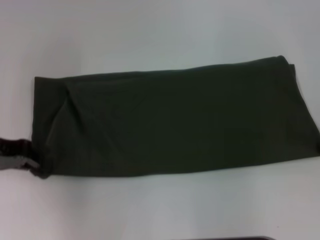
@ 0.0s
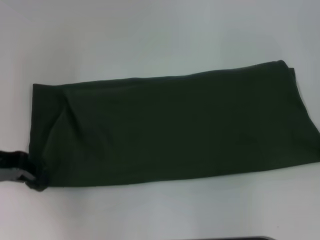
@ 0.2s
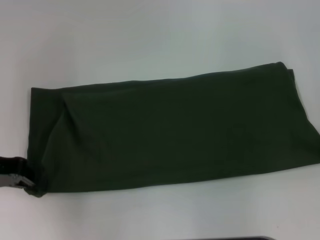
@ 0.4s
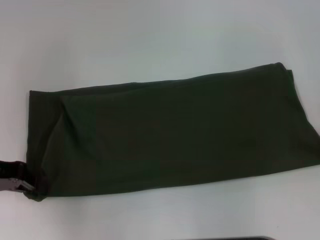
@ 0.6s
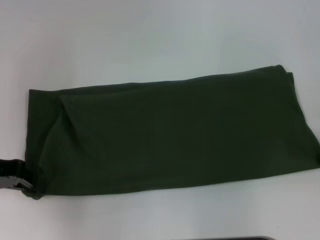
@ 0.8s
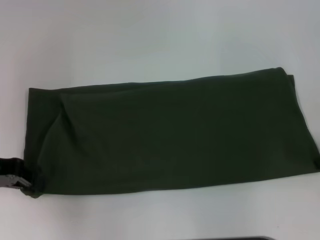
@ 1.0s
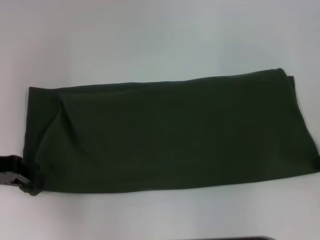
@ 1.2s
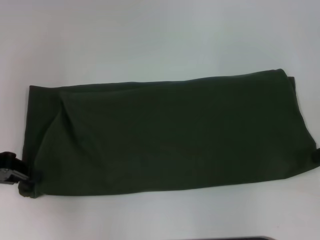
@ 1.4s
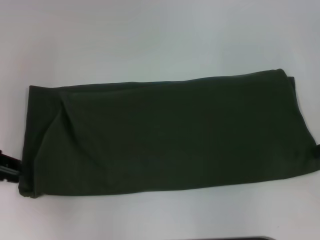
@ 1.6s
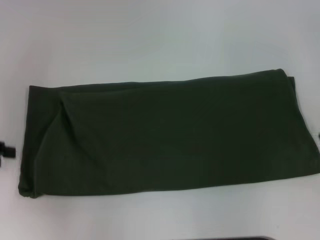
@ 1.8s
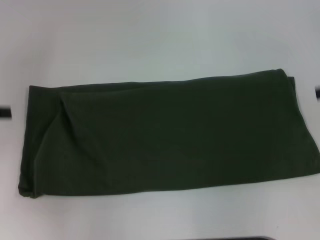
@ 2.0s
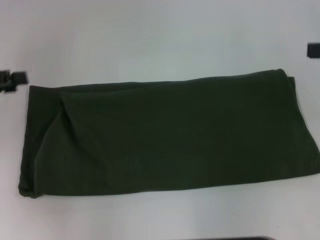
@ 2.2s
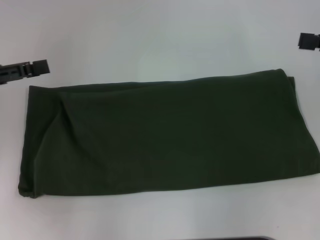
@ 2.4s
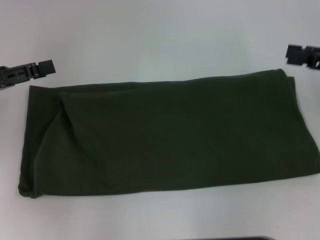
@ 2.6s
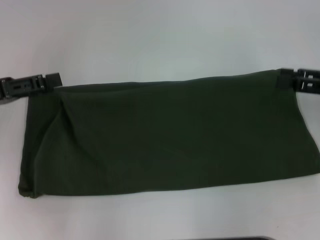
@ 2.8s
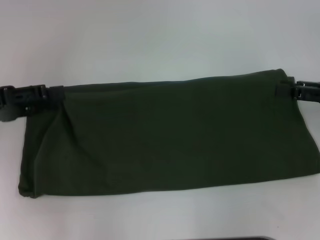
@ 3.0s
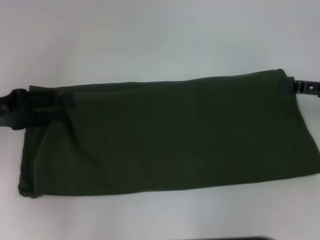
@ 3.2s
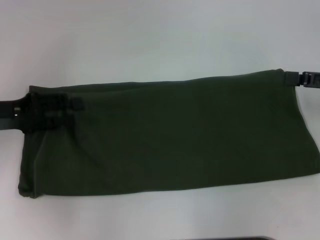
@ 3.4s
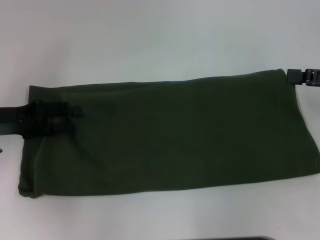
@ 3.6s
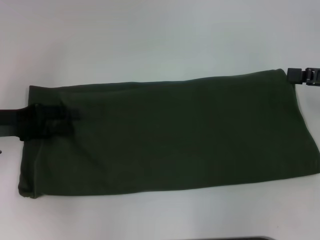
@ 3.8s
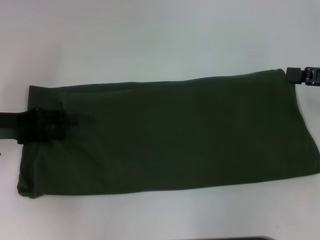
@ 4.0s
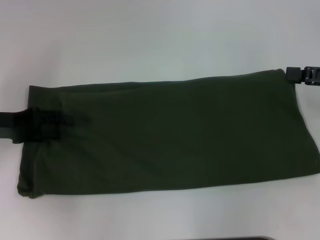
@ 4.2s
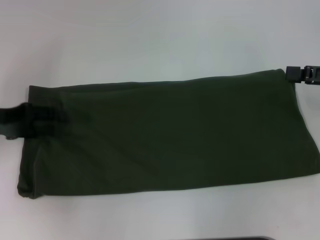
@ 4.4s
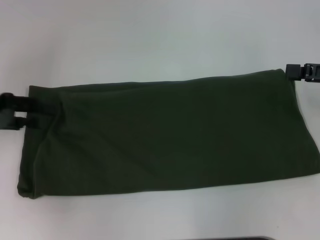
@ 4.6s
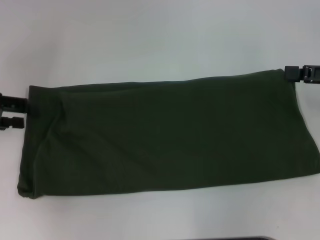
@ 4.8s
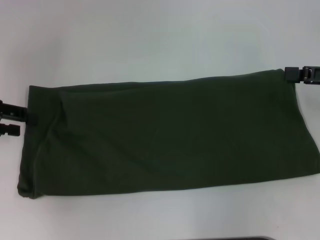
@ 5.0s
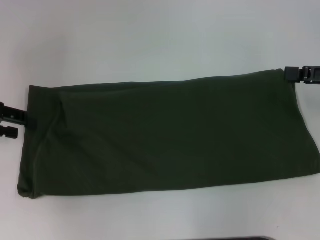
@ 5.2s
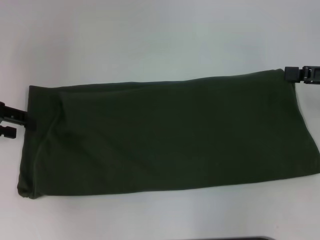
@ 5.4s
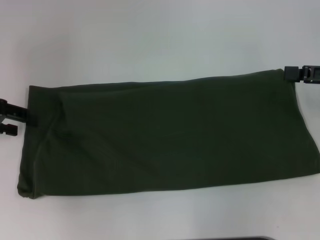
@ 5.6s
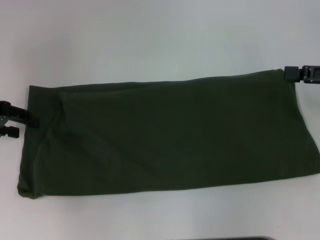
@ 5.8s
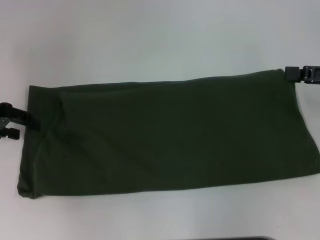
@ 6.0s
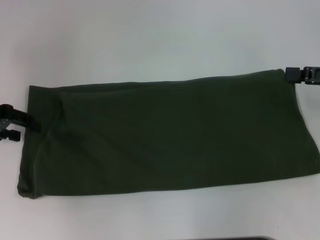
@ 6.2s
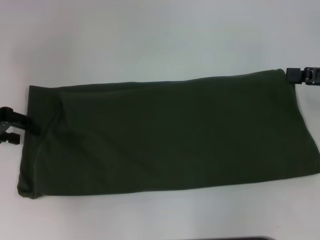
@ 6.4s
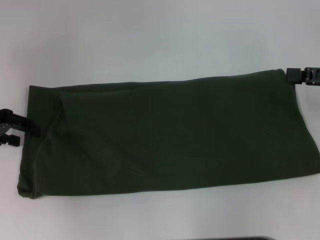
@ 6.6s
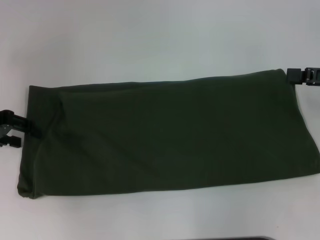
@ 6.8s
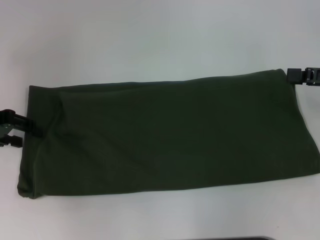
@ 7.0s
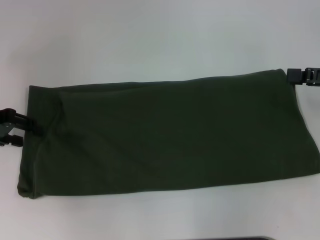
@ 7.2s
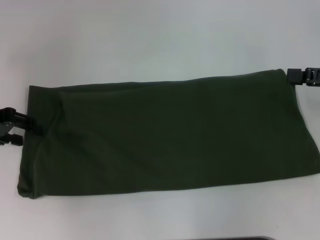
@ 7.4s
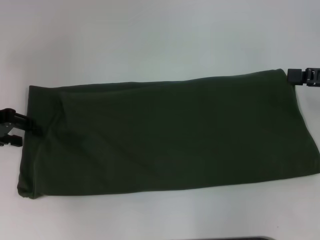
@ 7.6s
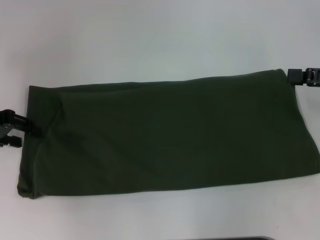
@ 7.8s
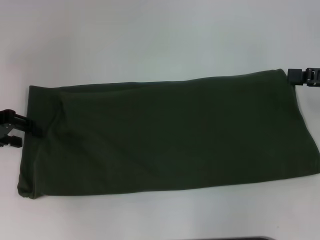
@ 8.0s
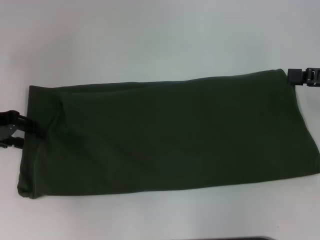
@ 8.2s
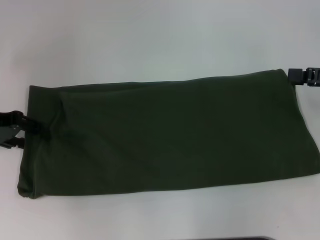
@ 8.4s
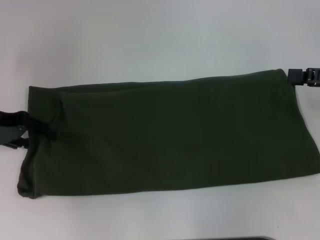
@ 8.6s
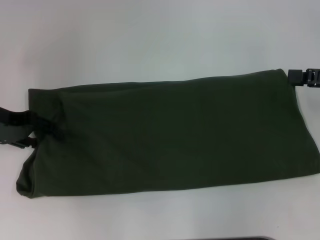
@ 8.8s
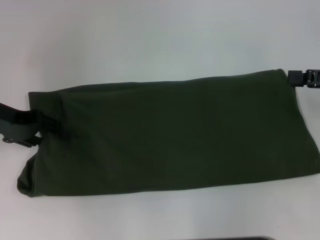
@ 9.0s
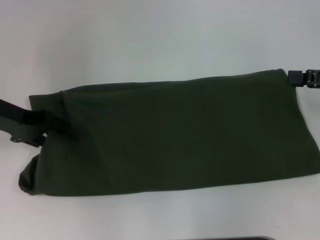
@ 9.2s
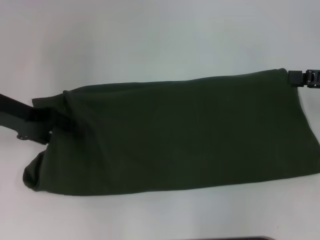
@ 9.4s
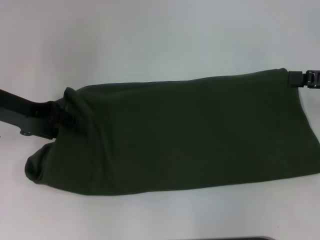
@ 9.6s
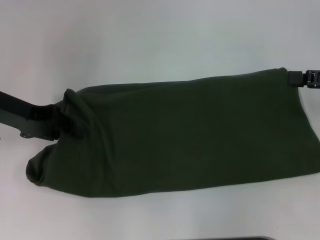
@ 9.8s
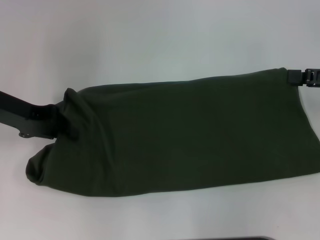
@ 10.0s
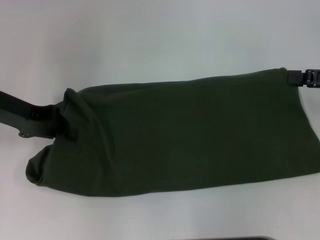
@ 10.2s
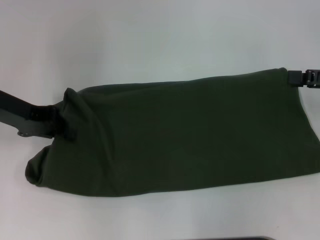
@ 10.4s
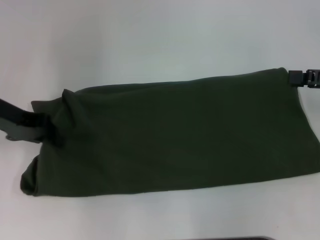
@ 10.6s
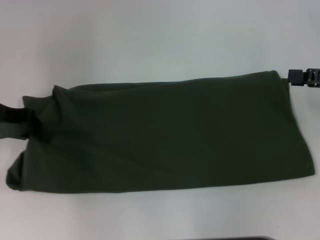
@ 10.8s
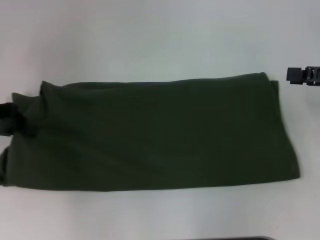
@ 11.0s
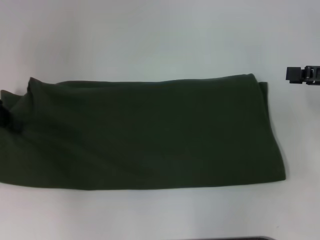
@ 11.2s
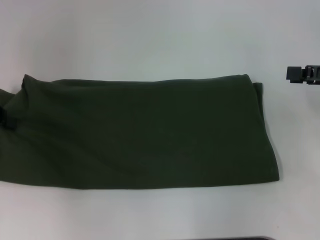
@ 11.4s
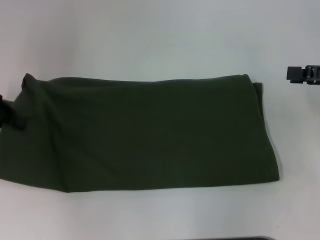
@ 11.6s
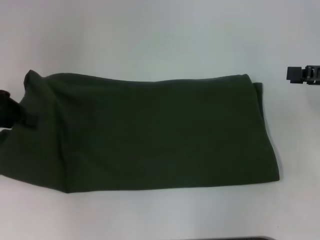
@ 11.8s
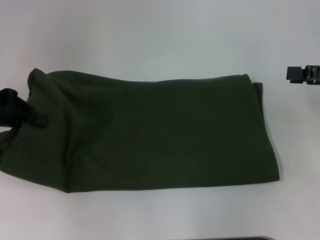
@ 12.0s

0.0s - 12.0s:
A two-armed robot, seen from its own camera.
0.0s - 1.6s: The grippers make only small movements.
1.6s - 3.0s: The left gripper opens its fingers; the right gripper opens up.
6.0s - 7.6s: Both grippers stay put.
7.6s - 9.0s: There are only small adjustments of the grippers.
9.0s - 10.4s: The left gripper closes its fingers.
10.4s - 12.0s: The left gripper shifts by roughly 5 cm.

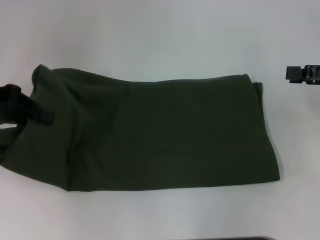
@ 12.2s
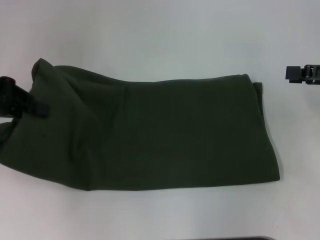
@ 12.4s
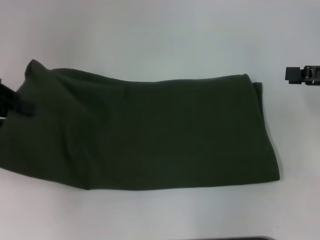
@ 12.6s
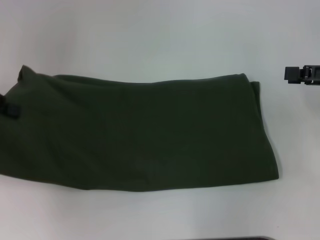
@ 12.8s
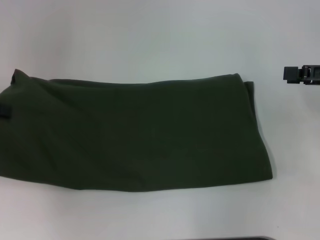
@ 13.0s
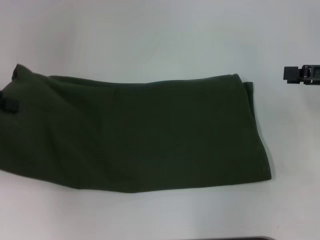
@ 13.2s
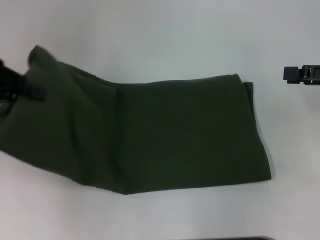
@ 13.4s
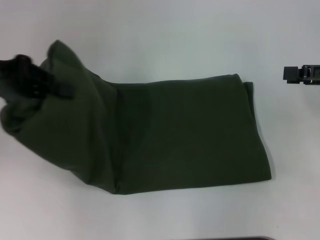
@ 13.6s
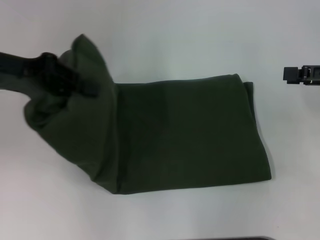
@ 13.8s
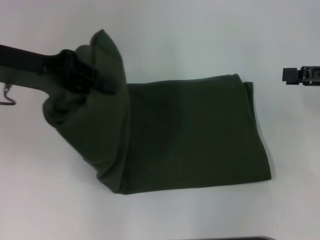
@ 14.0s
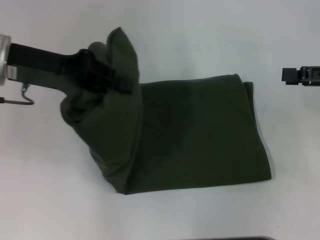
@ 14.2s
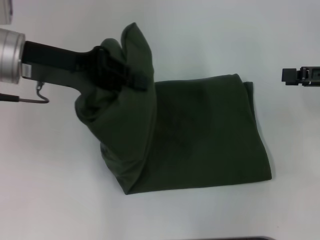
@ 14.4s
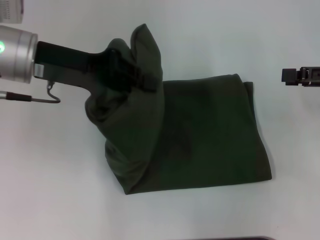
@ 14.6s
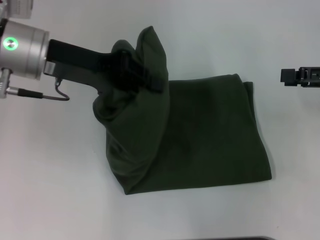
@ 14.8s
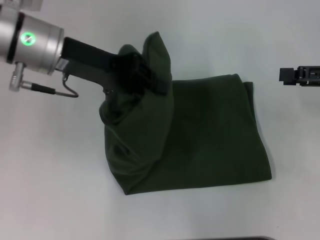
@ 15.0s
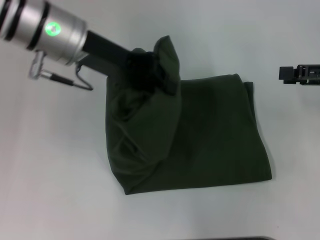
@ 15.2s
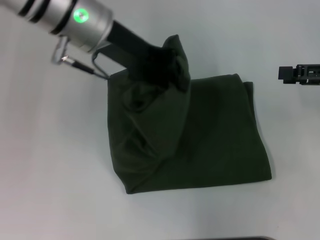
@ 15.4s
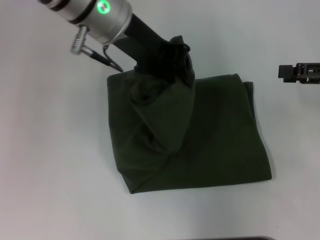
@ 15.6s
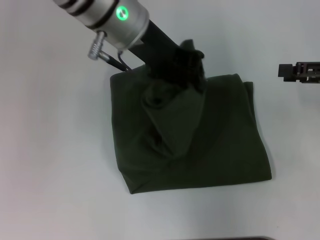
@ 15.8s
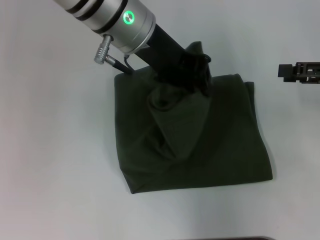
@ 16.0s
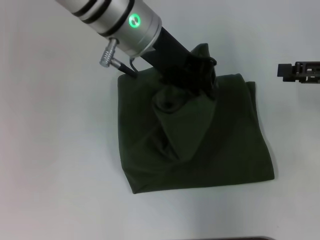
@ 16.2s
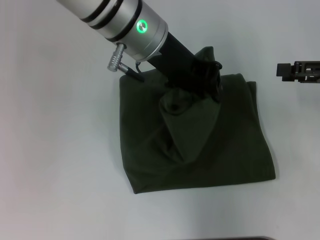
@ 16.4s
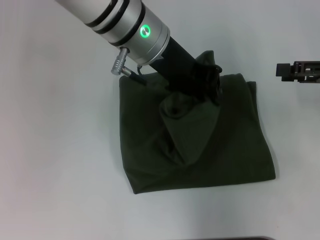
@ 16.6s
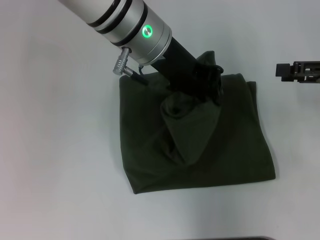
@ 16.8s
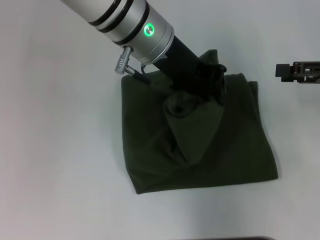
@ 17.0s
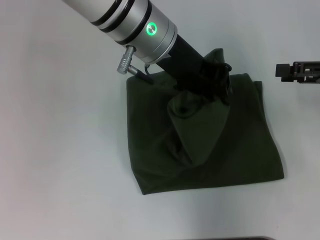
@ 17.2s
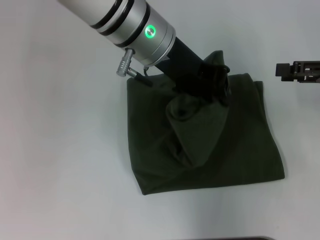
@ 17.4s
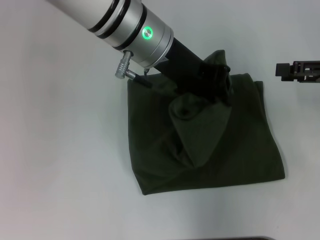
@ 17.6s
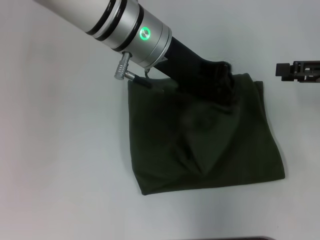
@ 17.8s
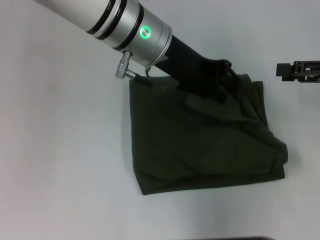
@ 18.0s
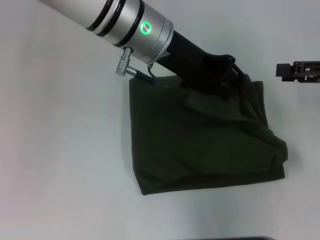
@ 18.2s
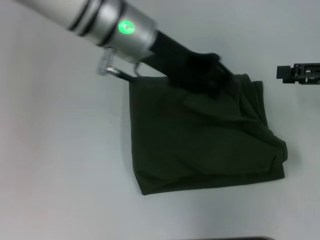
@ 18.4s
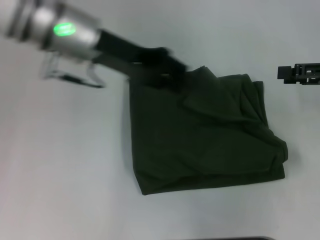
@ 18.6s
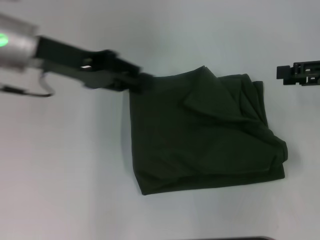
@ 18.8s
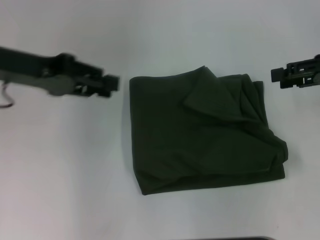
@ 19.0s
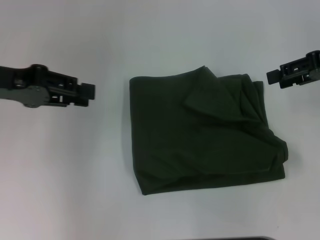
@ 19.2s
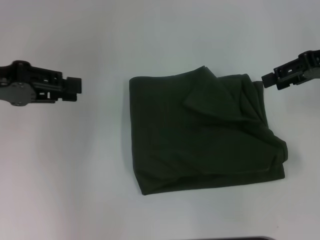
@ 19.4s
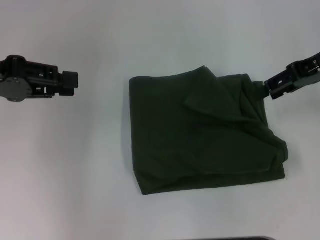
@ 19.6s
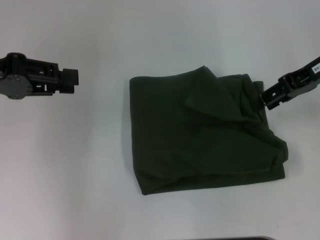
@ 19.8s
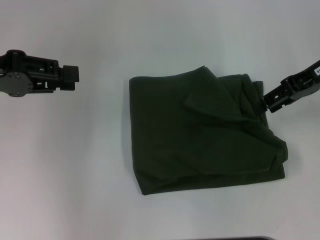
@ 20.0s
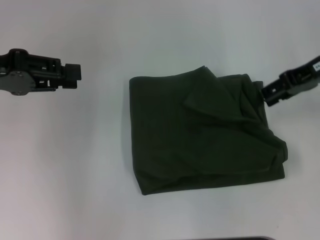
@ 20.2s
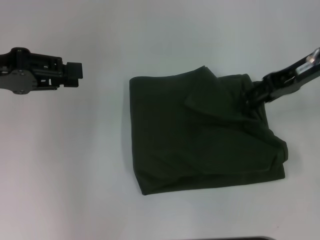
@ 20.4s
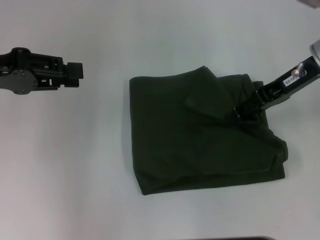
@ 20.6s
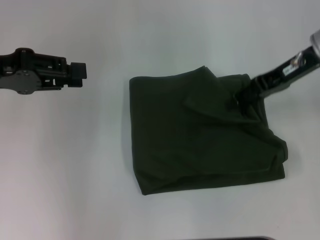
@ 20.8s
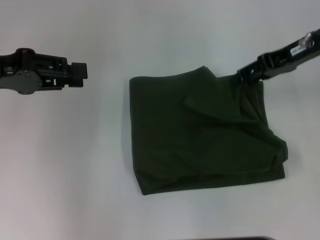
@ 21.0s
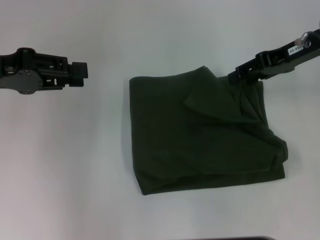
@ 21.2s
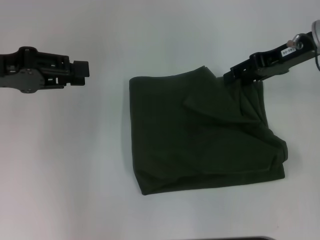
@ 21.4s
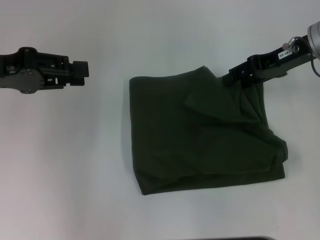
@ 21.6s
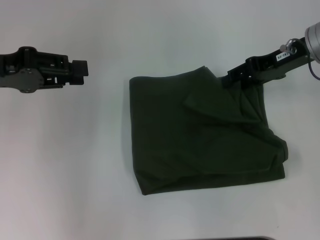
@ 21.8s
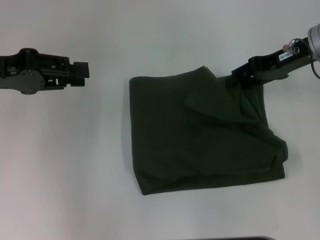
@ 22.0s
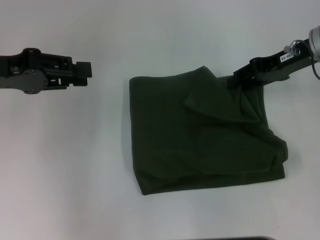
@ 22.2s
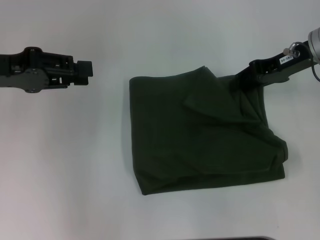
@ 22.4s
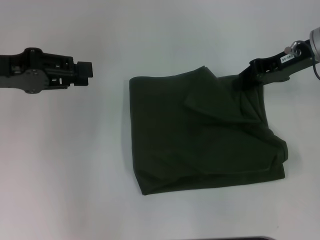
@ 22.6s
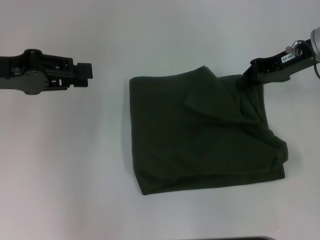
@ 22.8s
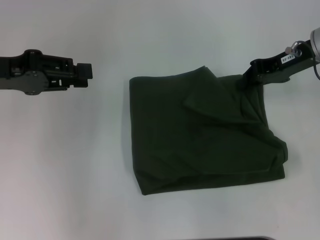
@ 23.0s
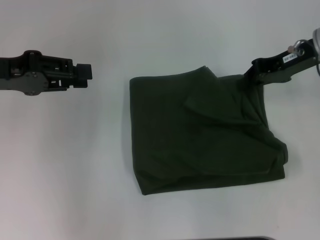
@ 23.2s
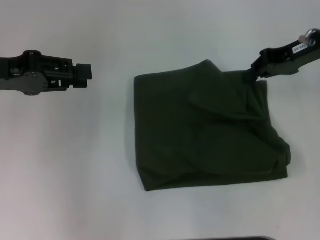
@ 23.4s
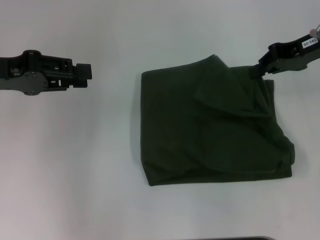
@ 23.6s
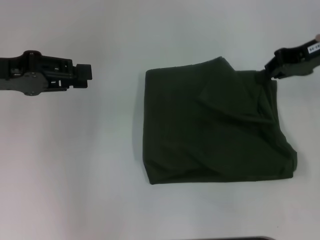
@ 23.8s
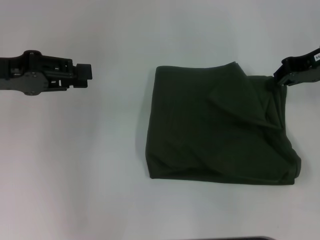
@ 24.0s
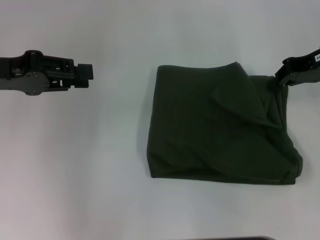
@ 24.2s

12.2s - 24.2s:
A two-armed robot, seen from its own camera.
Step, 12.2s - 18.4s: Fold the clothes with your left hand.
12.2s - 13.8s: The grippers stay close to where they were, moving slightly.
13.8s - 15.2s: The left gripper heads to the right, covering roughly 15 cm.
15.2s - 16.6s: The left gripper travels to the right by roughly 10 cm.
16.6s - 18.2s: The grippers make only small movements.
18.2s - 19.8s: The right gripper travels to the left and forward by about 10 cm. Meanwhile the left gripper travels to the left by roughly 25 cm.
19.8s - 22.6s: The grippers make only small movements.
22.6s - 24.2s: The right gripper closes.
